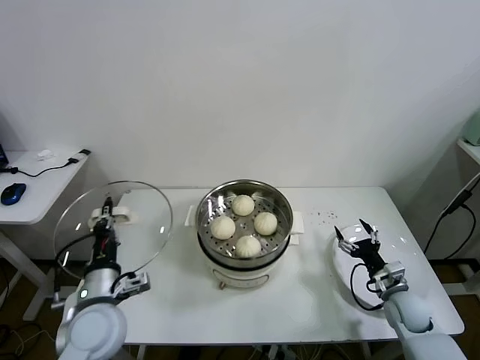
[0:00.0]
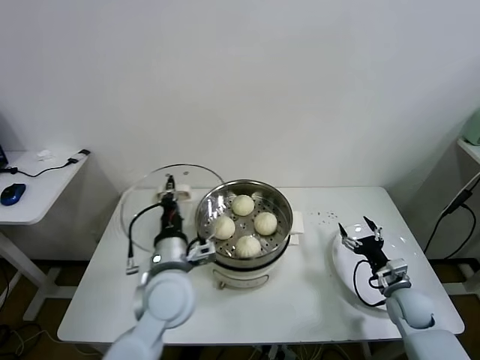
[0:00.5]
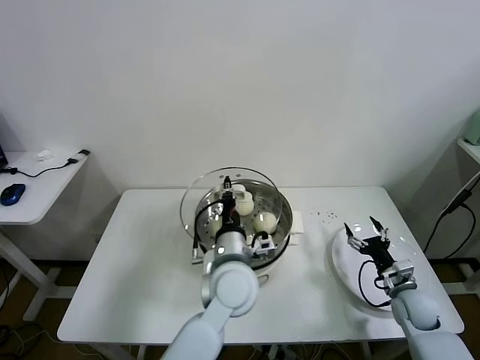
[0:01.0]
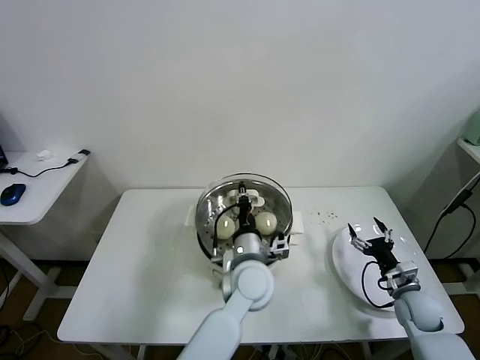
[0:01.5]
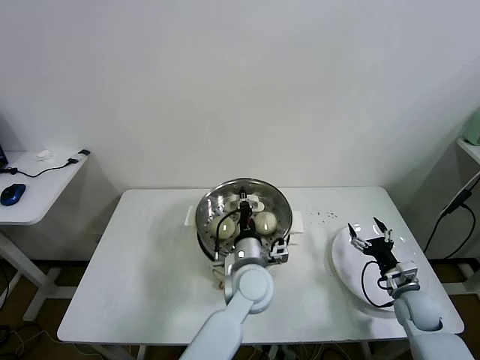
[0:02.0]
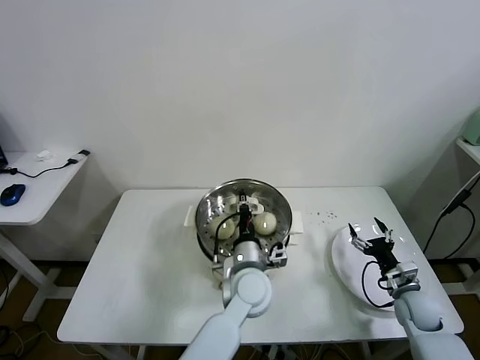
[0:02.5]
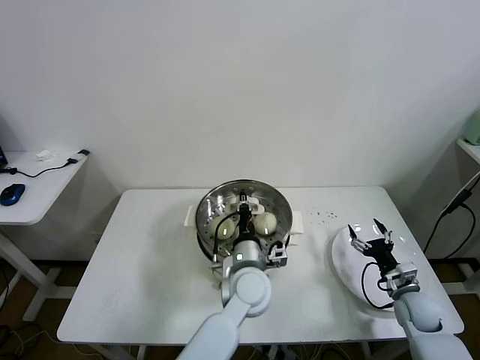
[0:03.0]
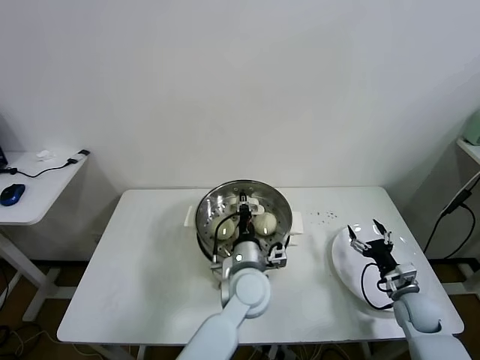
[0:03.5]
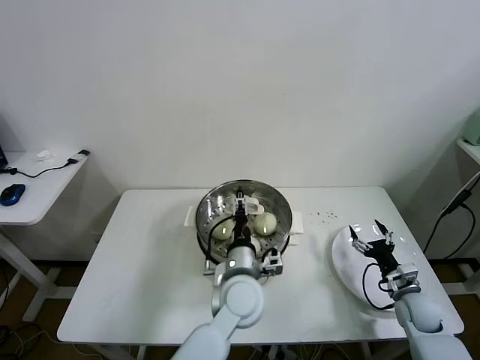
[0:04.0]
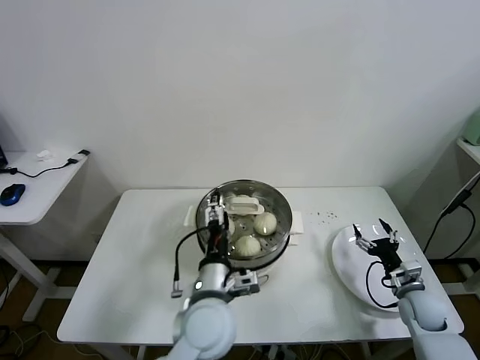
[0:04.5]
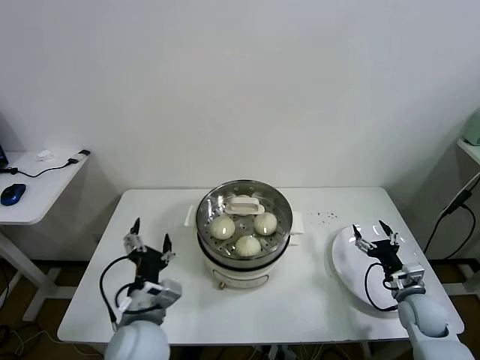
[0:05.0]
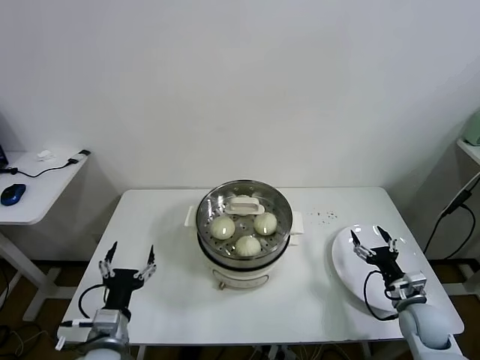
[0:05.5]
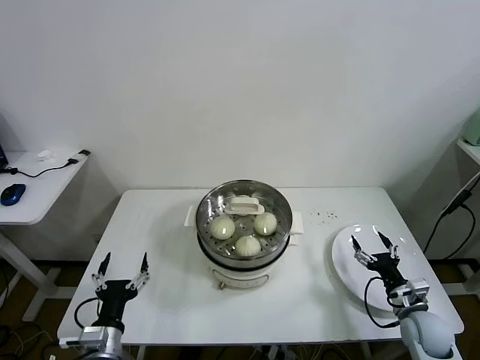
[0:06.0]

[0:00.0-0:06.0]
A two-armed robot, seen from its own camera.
Task of the whole recording: take steamed baozi put them in steamer.
Step, 0:00.0 to 0:04.0: Place the pot lid on the steamer with left gripper.
0:00.0 to 0:02.0: The left gripper heads to the right, covering some 30 cm.
0:02.0 to 0:04.0: The left gripper opens.
0:04.0 to 0:06.0: The right gripper changes place by some 5 cm. Meanwhile the left gripper heads to the left and backward, covering about 30 cm, and opens up.

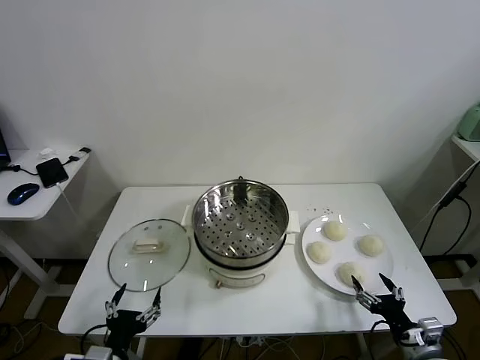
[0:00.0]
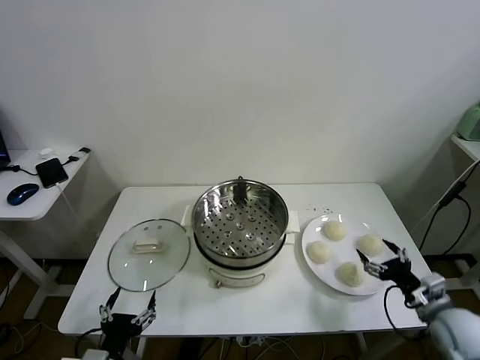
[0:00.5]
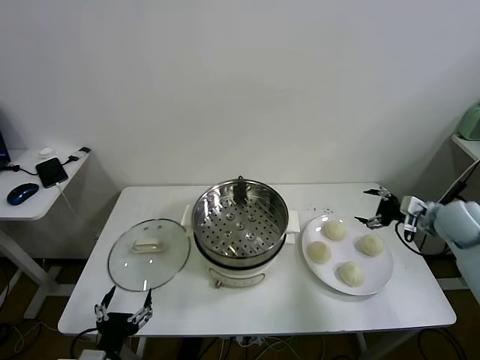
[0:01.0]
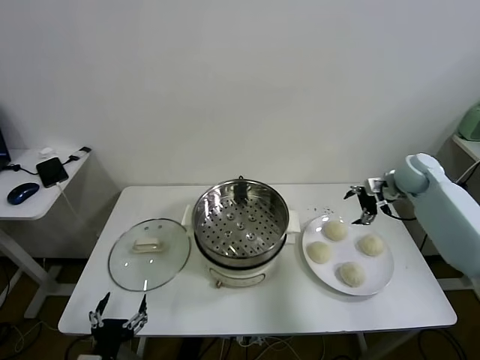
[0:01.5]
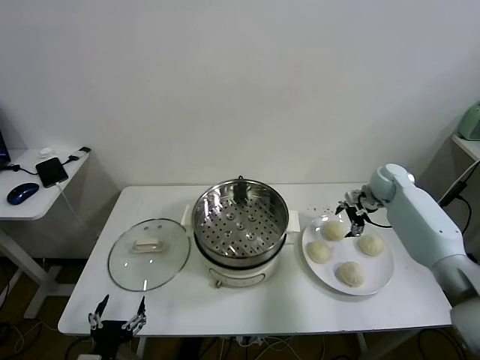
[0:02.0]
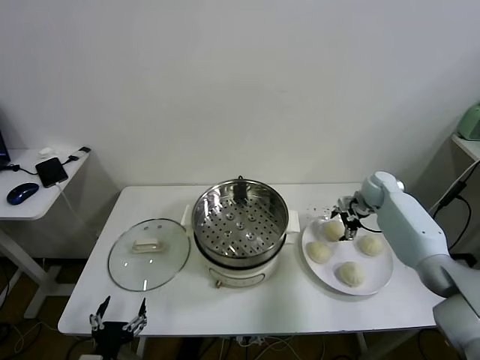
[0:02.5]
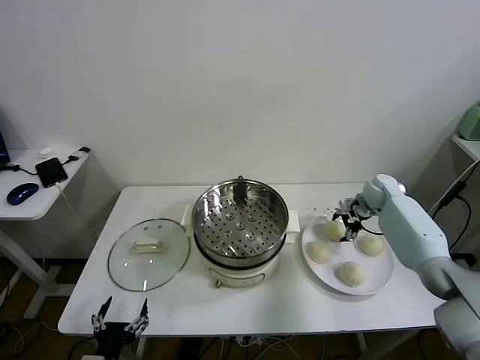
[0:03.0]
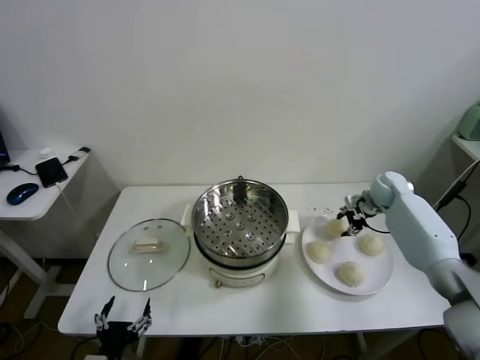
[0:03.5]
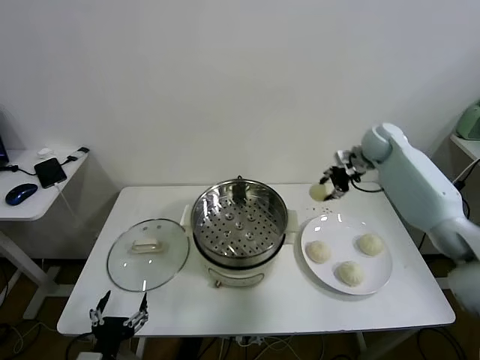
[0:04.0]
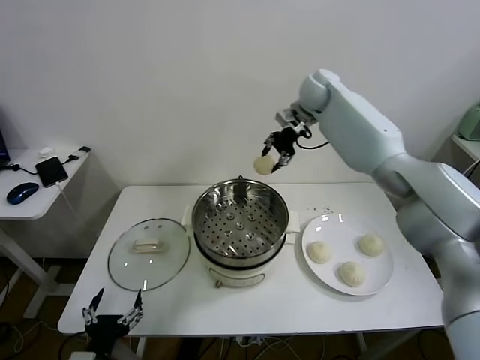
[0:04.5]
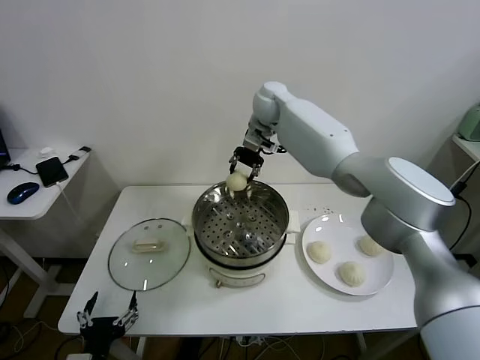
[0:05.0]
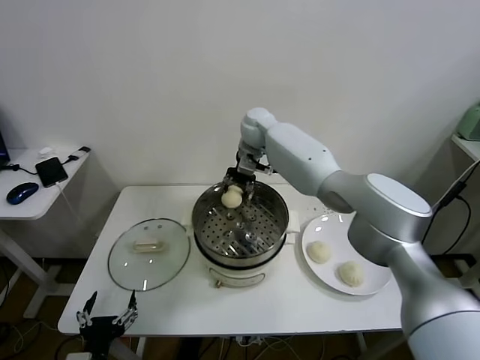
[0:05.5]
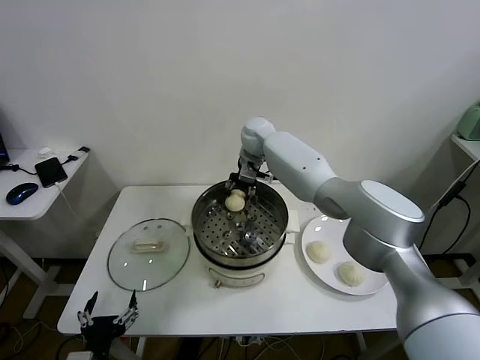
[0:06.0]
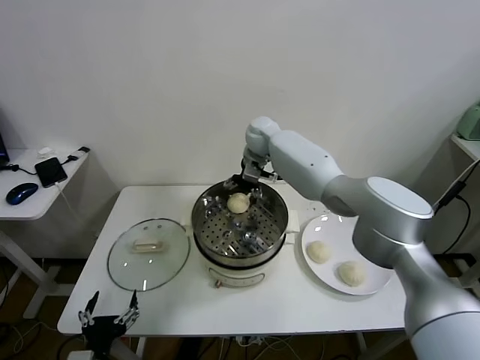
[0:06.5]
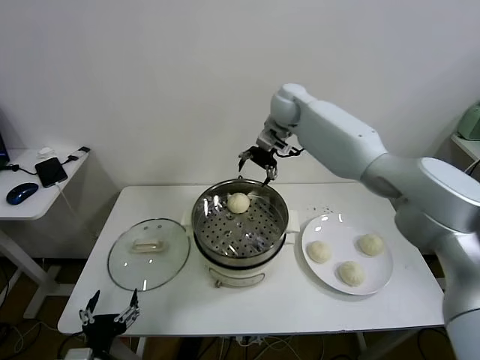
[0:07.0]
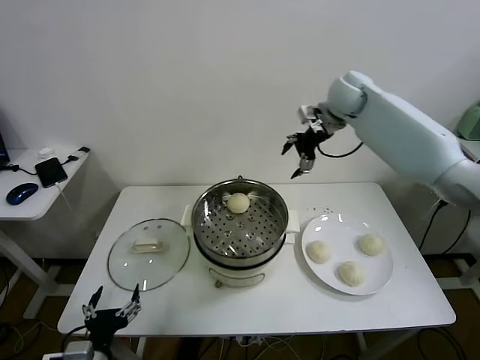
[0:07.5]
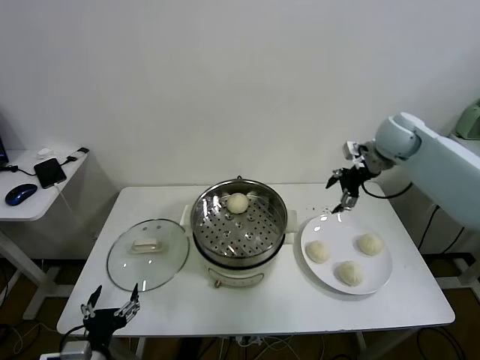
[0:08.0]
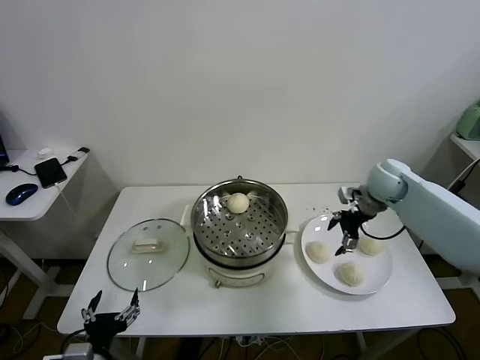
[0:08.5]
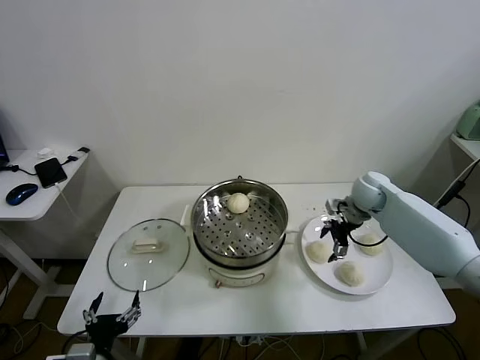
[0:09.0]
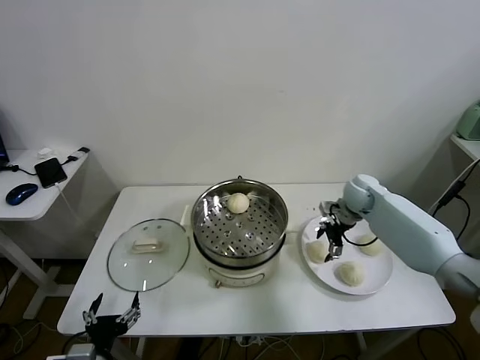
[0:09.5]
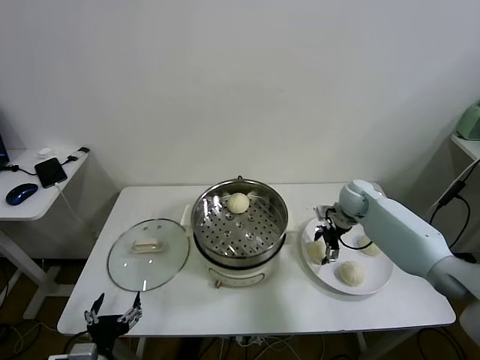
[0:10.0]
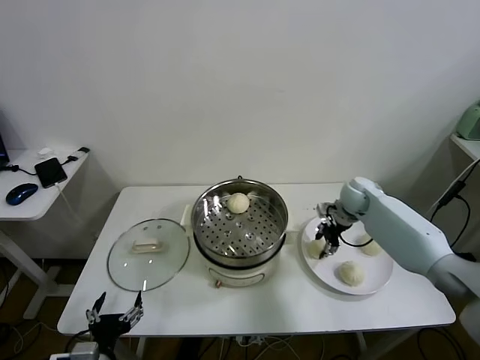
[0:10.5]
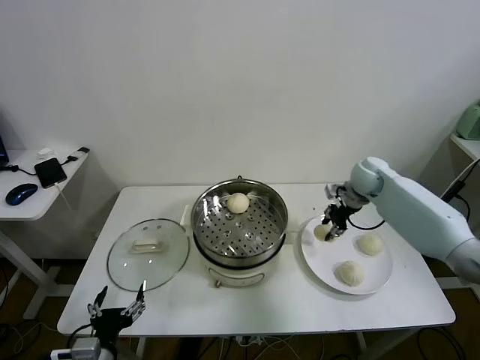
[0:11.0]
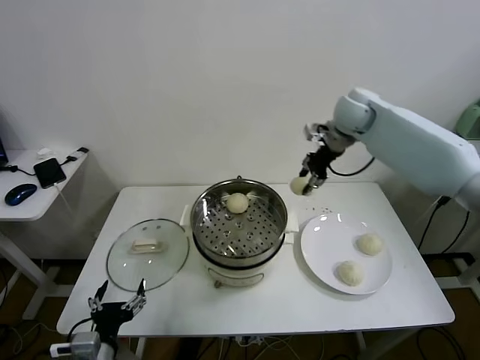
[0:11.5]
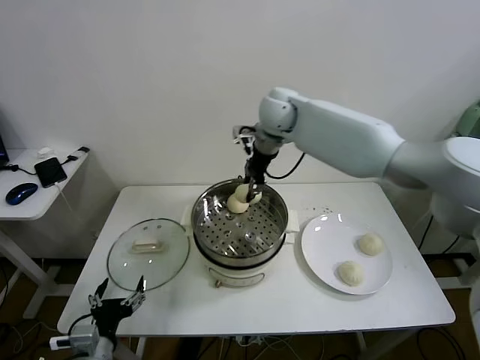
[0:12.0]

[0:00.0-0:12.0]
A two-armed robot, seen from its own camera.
Task of the whole recording: take steamed baozi put them in steamer.
Step, 0:00.0 to 0:03.0: Grasp the baozi in the plate with right gripper.
Step, 0:03.5 to 0:06.0: Place the baozi on the steamer with right gripper.
Step, 0:07.0 to 0:10.0: Grasp the baozi in the plate with right gripper.
0:02.0 to 0:04.0: The right gripper is displaced upward and to the left by about 25 cm, and closes its fingers.
0:04.0 to 0:06.0: The right gripper goes some 25 cm to the left.
0:06.0 to 0:08.0: The right gripper moves to the right, roughly 30 cm, and opens its fingers.
0:08.0 to 0:10.0: The right gripper is displaced downward by approximately 15 cm.
0:10.0 to 0:12.0: The right gripper is displaced to the left and upward by approximately 35 cm, and closes.

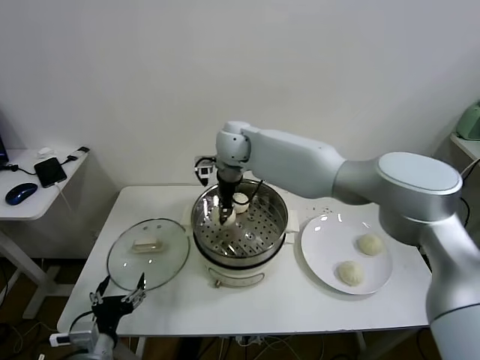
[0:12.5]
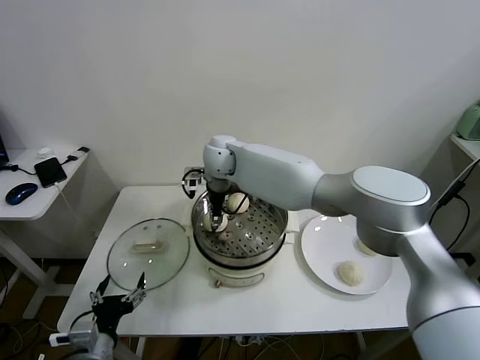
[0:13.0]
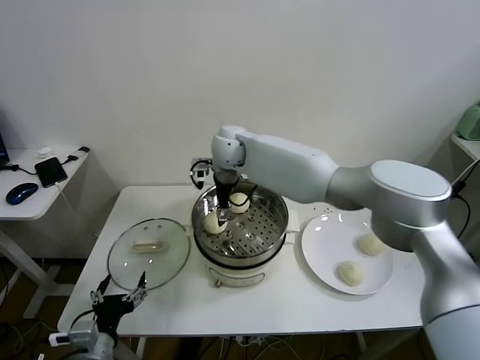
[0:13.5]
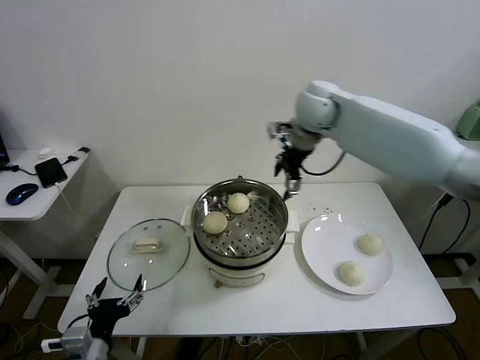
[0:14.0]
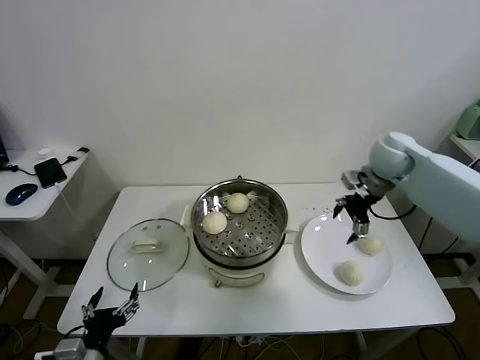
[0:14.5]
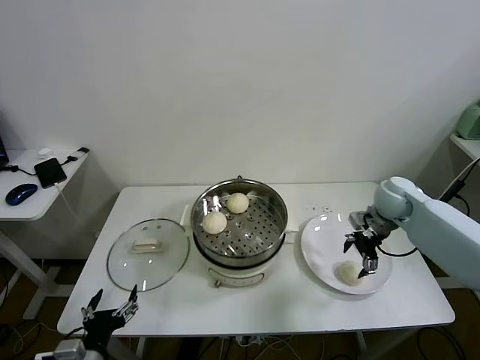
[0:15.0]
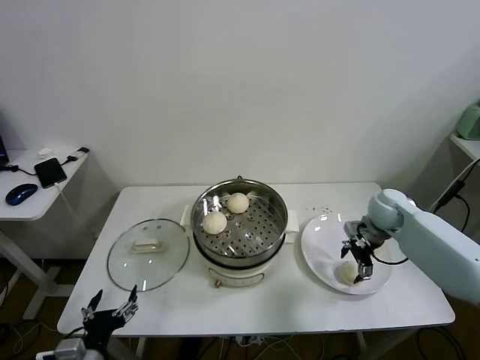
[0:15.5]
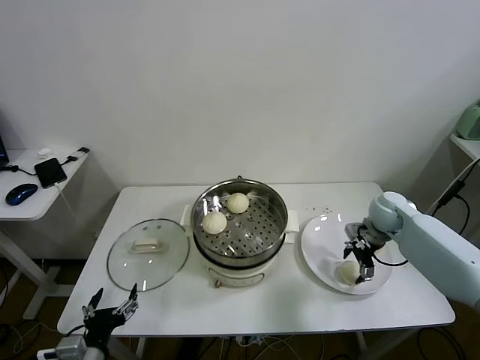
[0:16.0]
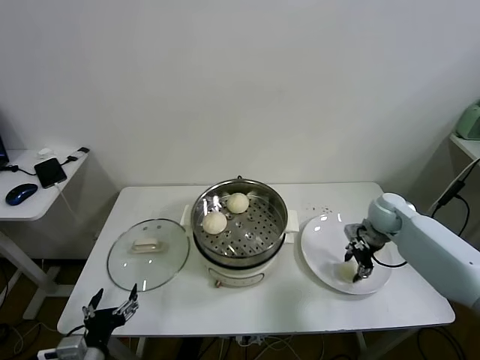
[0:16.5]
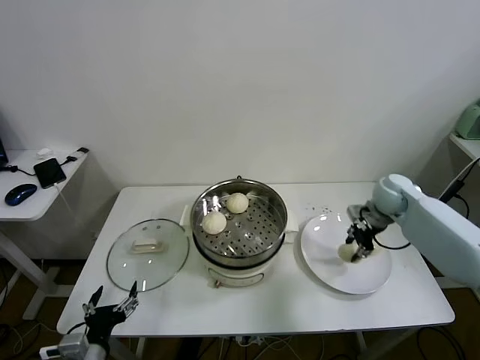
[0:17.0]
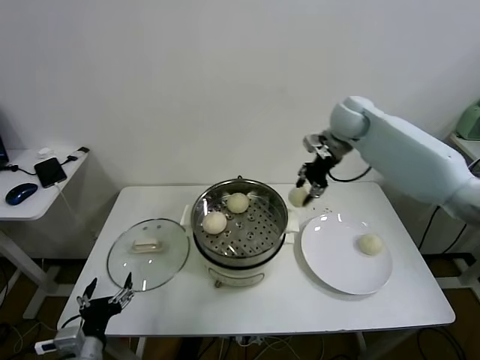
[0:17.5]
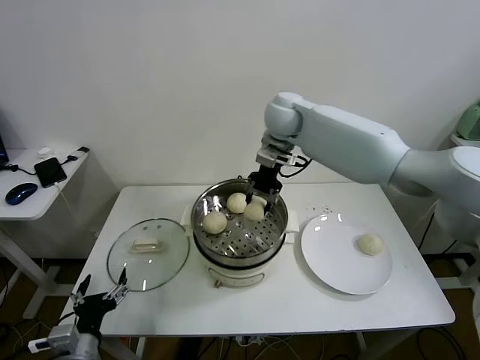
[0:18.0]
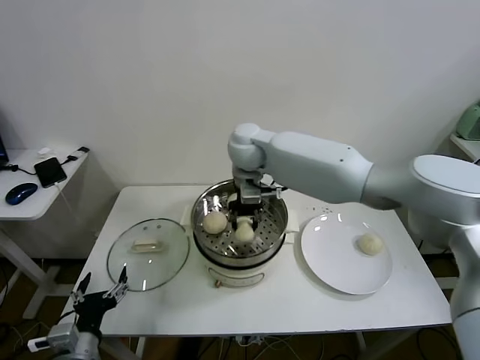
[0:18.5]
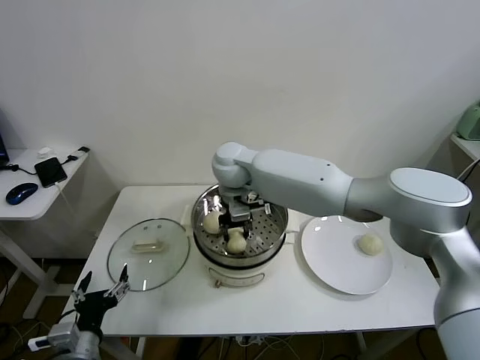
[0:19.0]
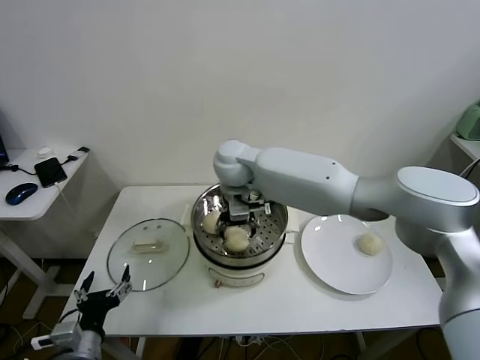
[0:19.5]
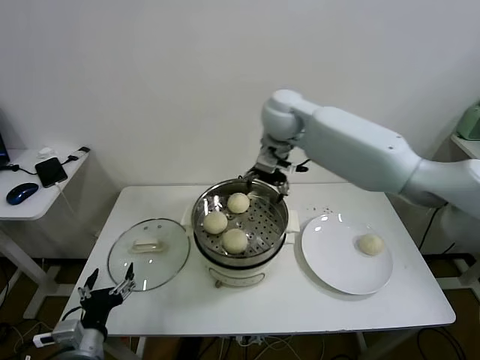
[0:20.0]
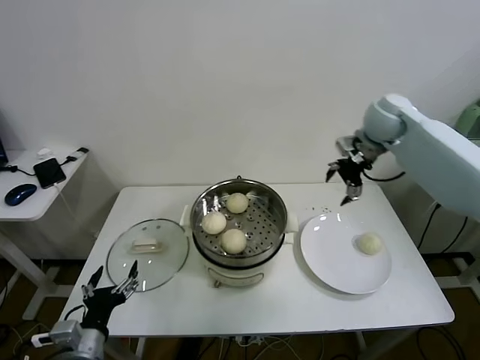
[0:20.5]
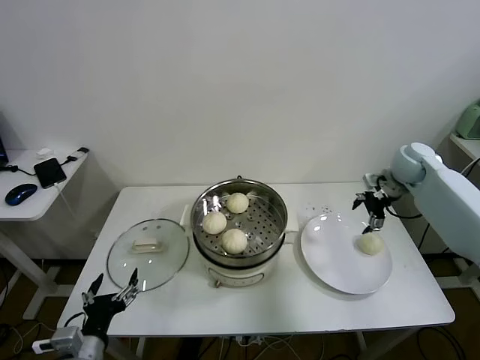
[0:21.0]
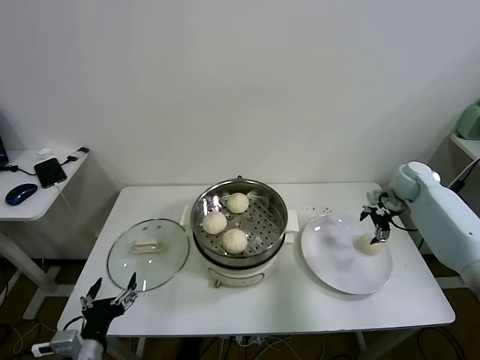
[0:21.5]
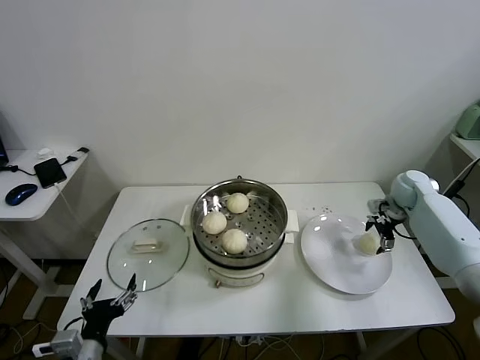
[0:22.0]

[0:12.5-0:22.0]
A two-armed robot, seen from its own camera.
Task of the whole recording: take steamed baozi put them in steamer.
Step, 0:13.5 to 0:16.5: Grasp the baozi in the plate with right gripper.
Step, 0:17.0 to 0:19.5: Place the baozi on the steamer with right gripper.
0:12.5 to 0:14.5: The right gripper travels to the right by roughly 40 cm, and opens up.
0:14.5 to 0:16.5: The right gripper heads downward, covering roughly 15 cm, and closes.
0:16.5 to 0:18.0: The right gripper shifts approximately 40 cm to the left and upward.
0:18.0 to 0:20.0: The right gripper is displaced to the right by roughly 5 cm, and opens up.
0:20.0 to 0:22.0: The right gripper is displaced to the right and downward by some 40 cm.
